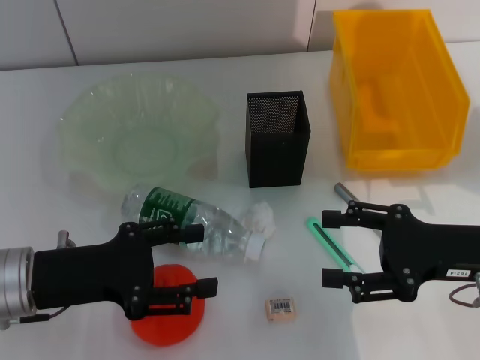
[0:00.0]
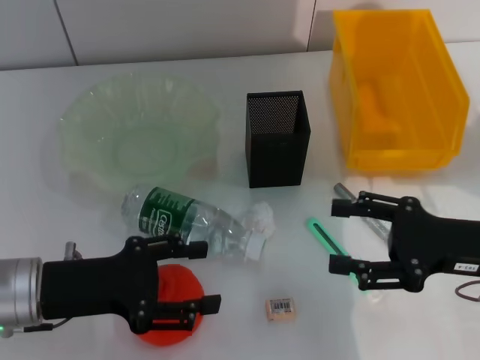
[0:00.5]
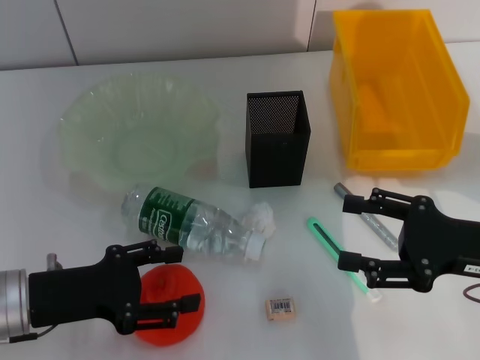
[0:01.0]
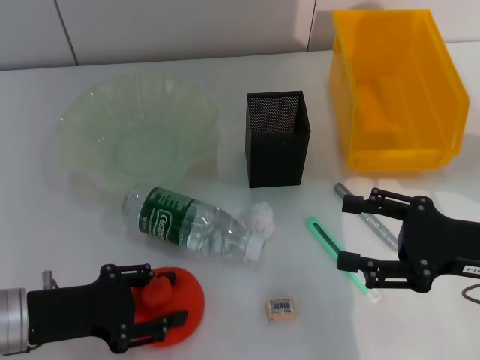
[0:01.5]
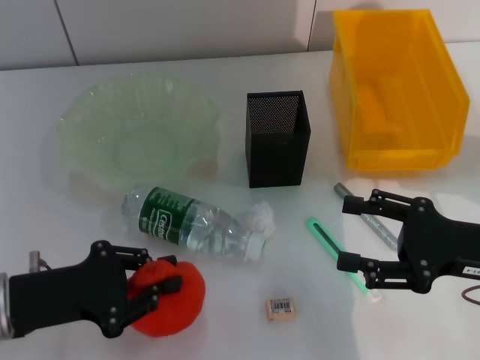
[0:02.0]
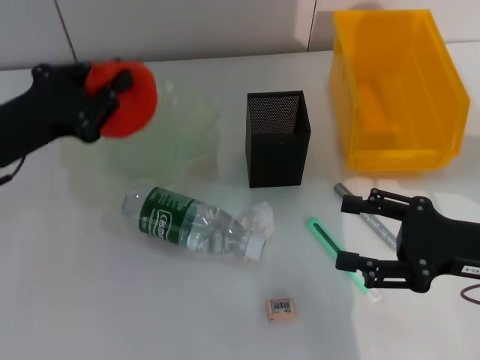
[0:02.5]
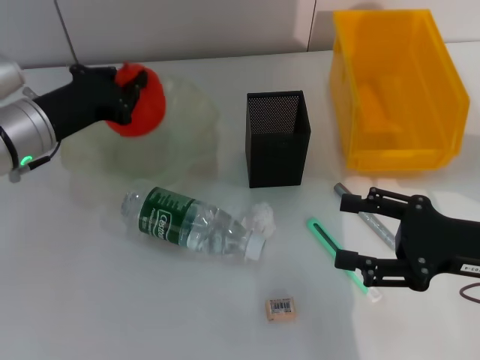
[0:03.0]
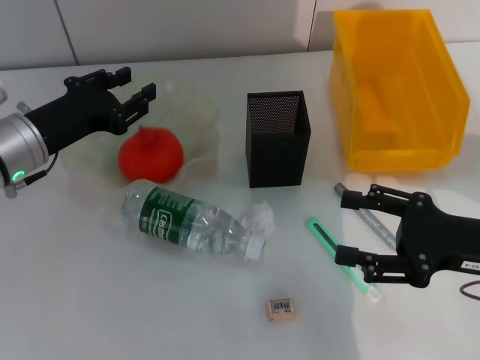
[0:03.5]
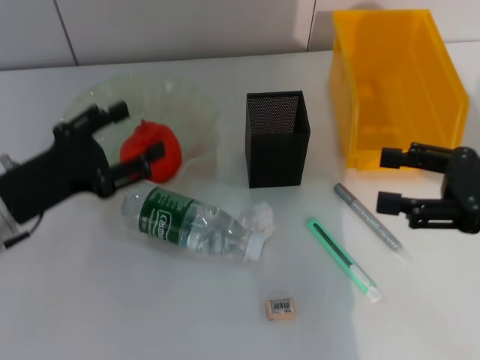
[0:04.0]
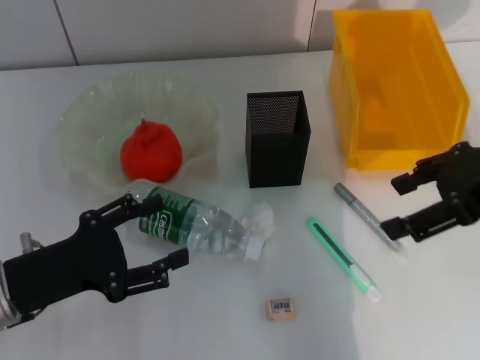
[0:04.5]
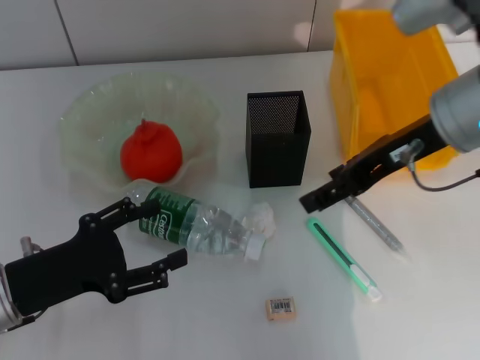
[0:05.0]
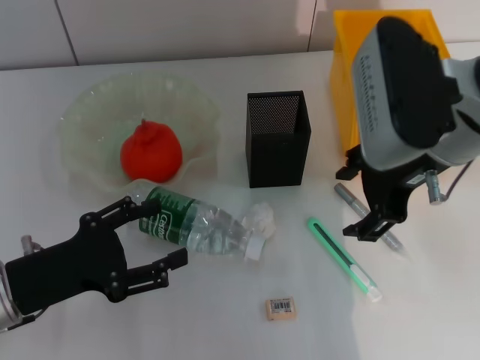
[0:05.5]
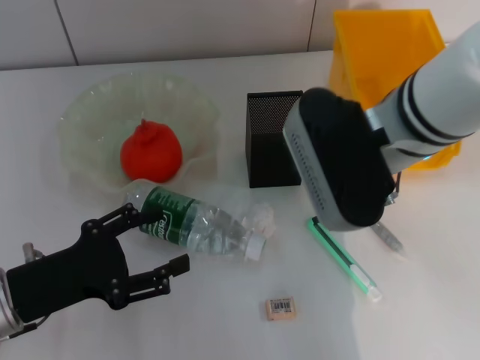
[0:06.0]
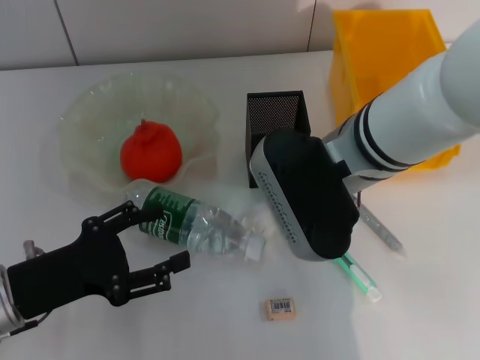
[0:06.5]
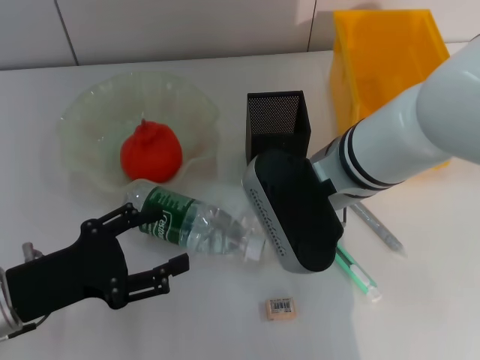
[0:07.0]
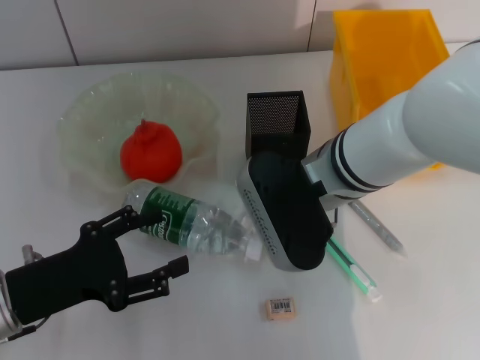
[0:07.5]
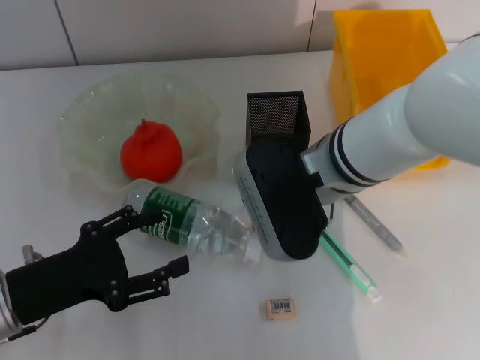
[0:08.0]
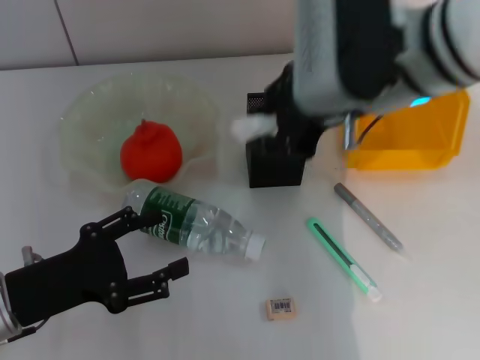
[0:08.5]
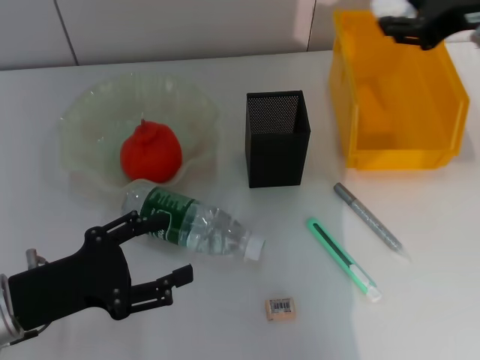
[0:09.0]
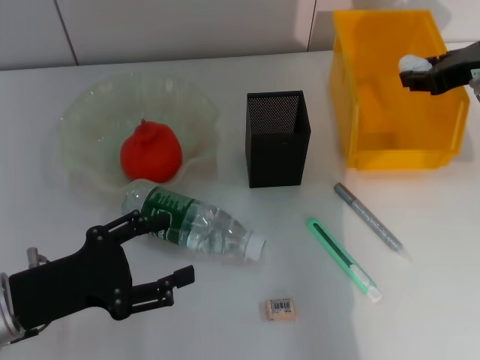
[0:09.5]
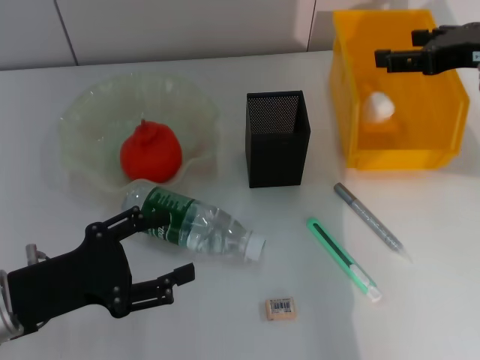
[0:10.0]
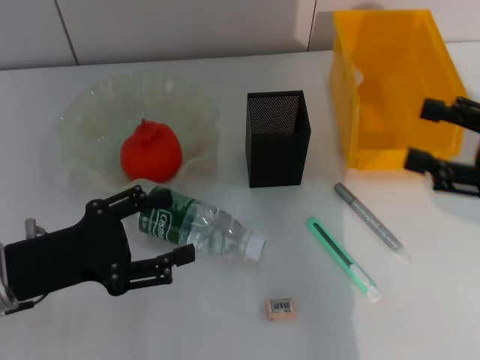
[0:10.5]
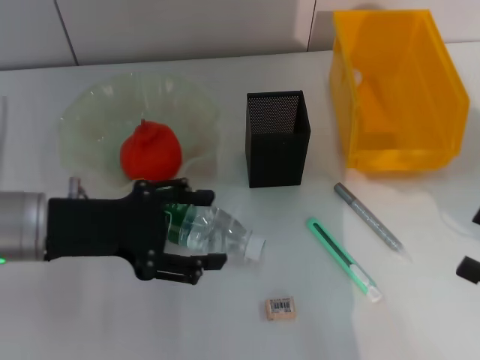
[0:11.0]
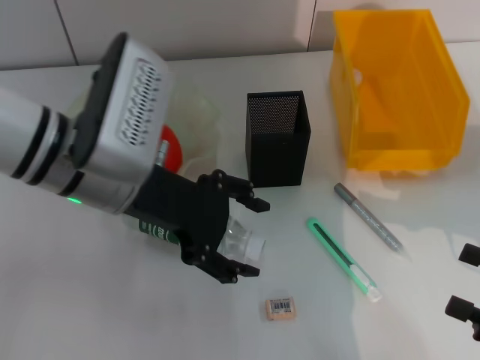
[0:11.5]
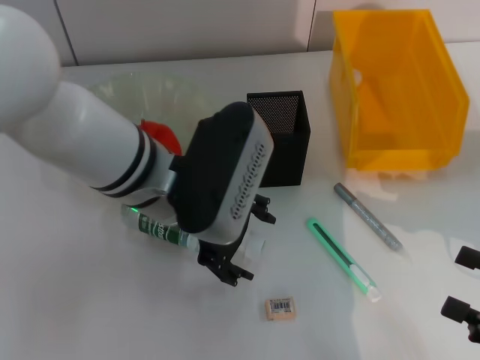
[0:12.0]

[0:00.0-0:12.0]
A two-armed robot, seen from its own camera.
Step, 0:00.0 to 0:01.5: Grab the orange with the left hand.
Step, 0:02.0 to 0:03.5: Place the orange into the fruit bowl with the left hand.
Step, 0:04.0 to 0:08.0: Grab the paper ball with the right hand.
Step, 0:08.5 to 0:10.0: Place the paper ball into the trash can with the right hand.
0:00.0 to 0:02.0: The left gripper closes up.
0:02.0 to 0:04.0: The right gripper goes about 5 cm upward; the left gripper travels forward by some 5 cm, and opens up.
0:04.0 to 0:06.0: The left gripper shifts approximately 5 cm backward; the right gripper is displaced to the left by approximately 20 cm.
0:06.0 to 0:08.0: The right gripper is displaced downward by some 5 cm, and closes.
0:08.0 to 0:10.0: The right gripper moves to the right, about 20 cm.
0:10.0 to 0:12.0: The right gripper travels backward and downward by roughly 25 cm, while the left gripper moves to the right, upward and forward, about 20 cm.

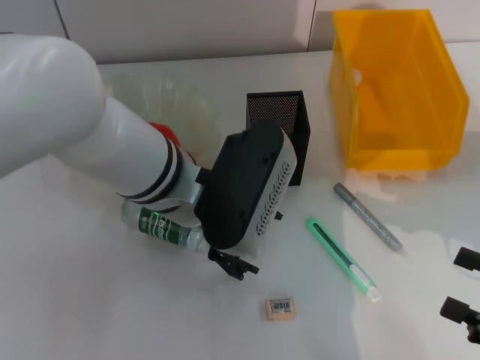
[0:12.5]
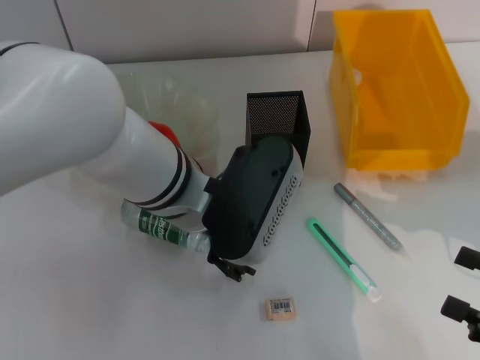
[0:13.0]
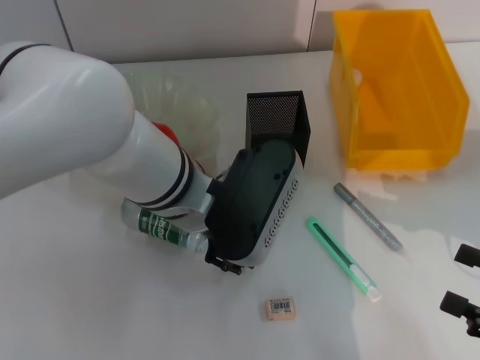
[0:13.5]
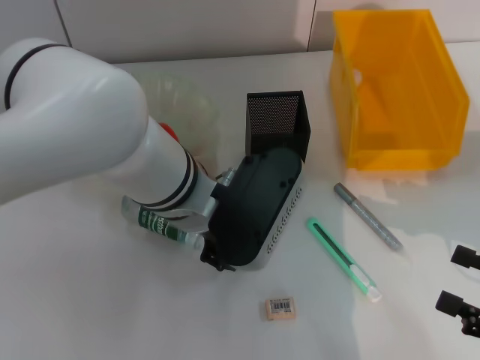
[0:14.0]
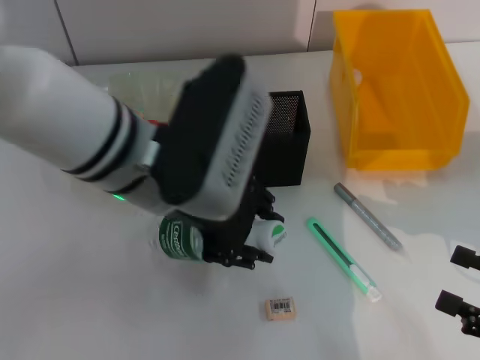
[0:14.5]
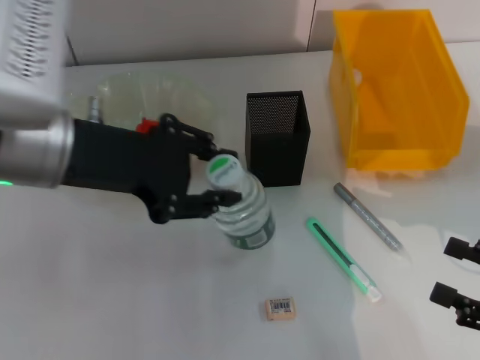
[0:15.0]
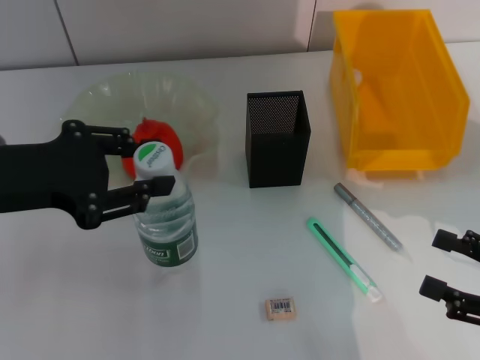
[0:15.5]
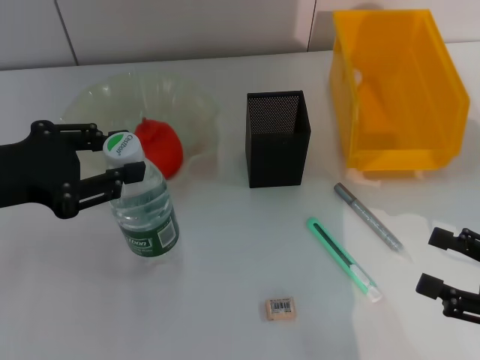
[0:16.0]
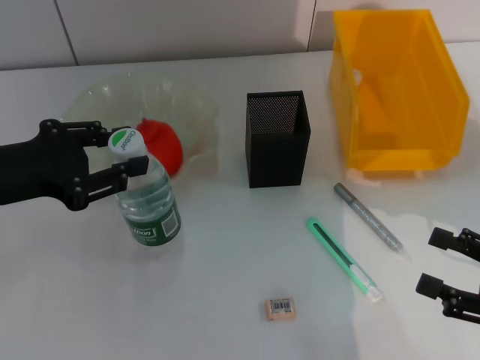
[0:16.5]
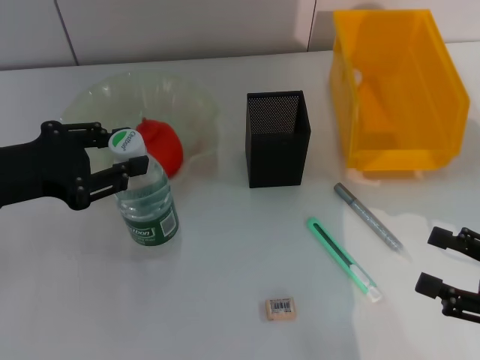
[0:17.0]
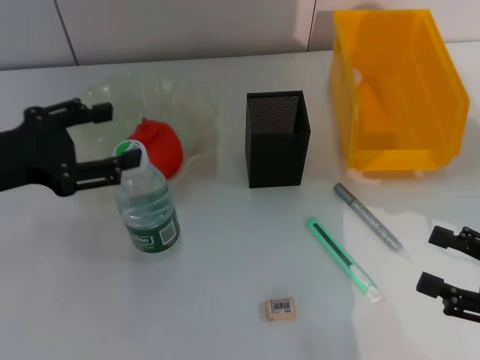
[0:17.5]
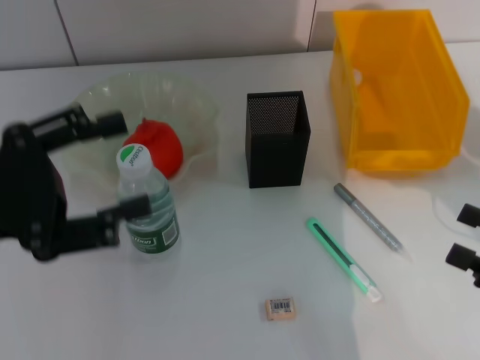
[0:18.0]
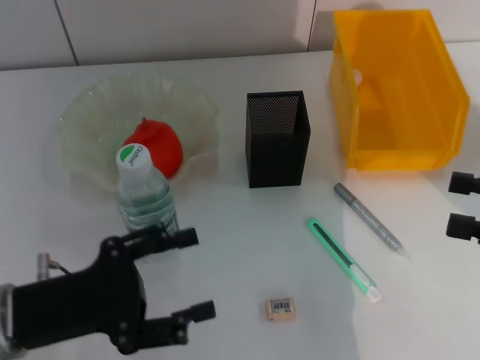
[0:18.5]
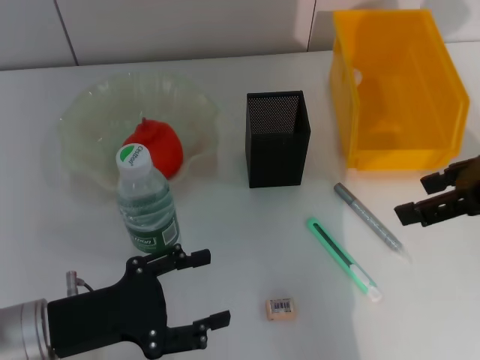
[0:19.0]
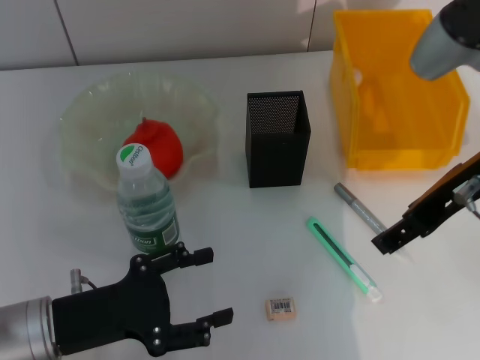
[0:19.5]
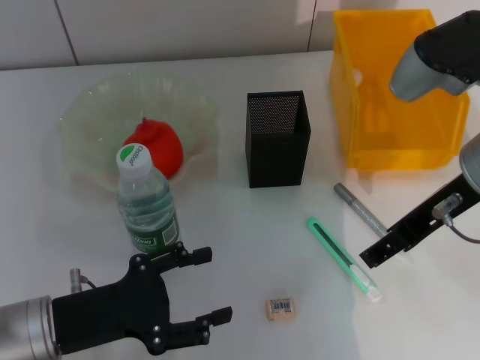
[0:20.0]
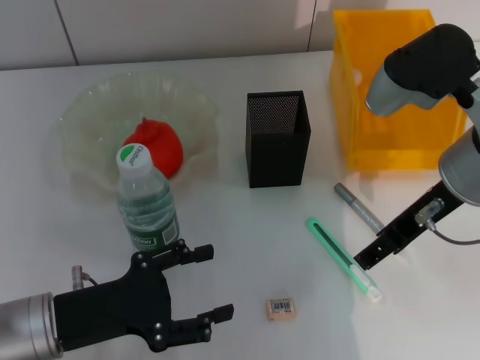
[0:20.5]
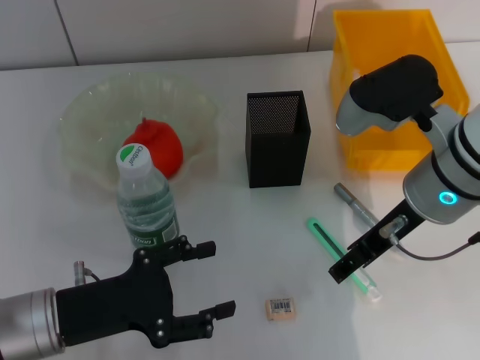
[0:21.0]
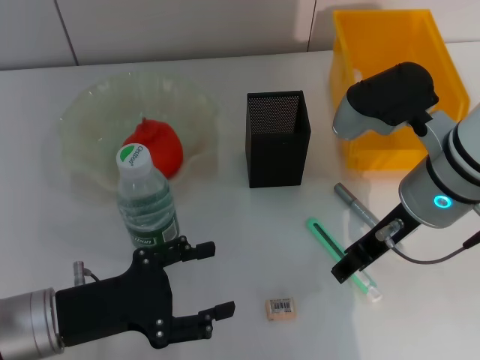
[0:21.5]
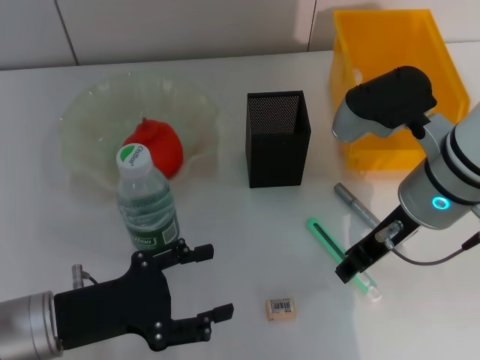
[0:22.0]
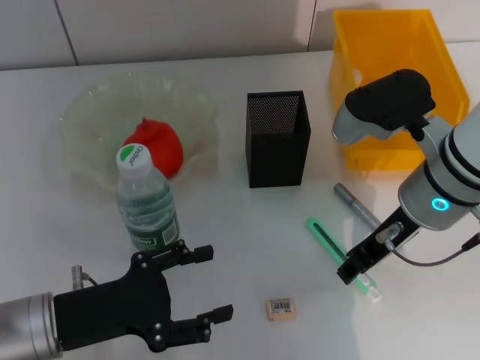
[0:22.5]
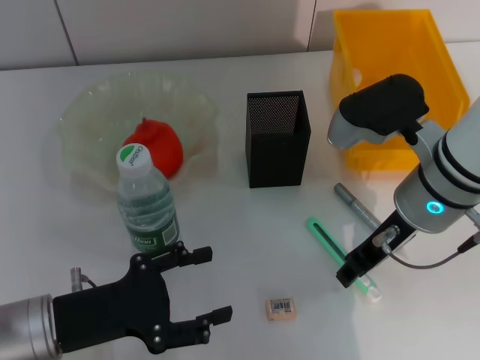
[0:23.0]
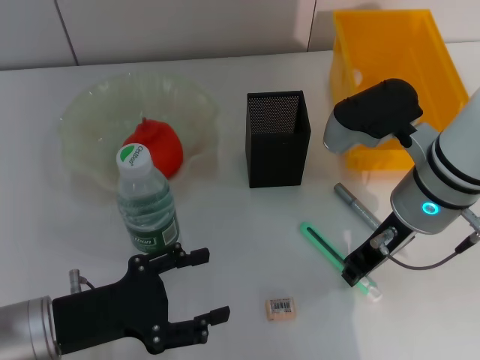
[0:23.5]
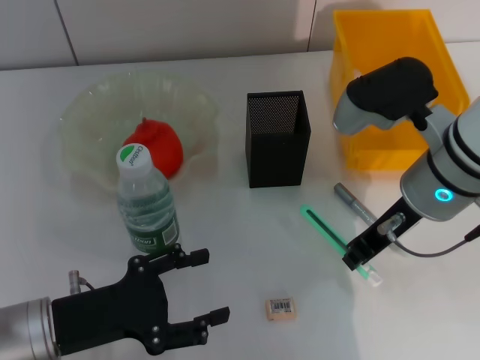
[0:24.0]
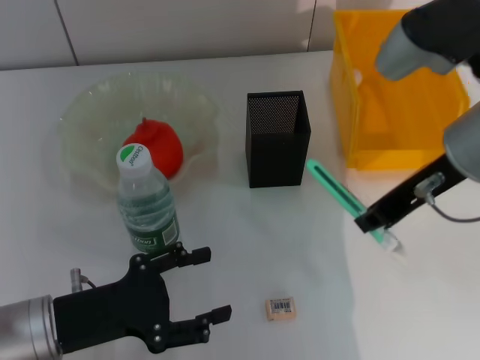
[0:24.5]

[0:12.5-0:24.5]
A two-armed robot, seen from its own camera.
Step, 0:14.5 to 0:17.5: Place the water bottle on the table with the left hand.
Step, 0:18.0 to 0:23.0: Grab the blue utility knife with the right hand.
0:12.5 to 0:14.5: The left gripper closes.
0:14.5 to 0:16.5: The left gripper shifts roughly 20 cm to the left.
0:16.5 to 0:18.5: The left gripper travels downward and backward by some 10 cm, and opens, while the right gripper is displaced upward by some 10 cm.
0:18.5 to 0:20.5: The right gripper goes some 20 cm to the left and forward.
0:20.5 to 0:22.5: The right gripper ends up roughly 5 cm from where it was, and closes its fingers.
0:22.5 to 0:24.5: The right gripper travels upward by about 5 cm, and closes its fingers.

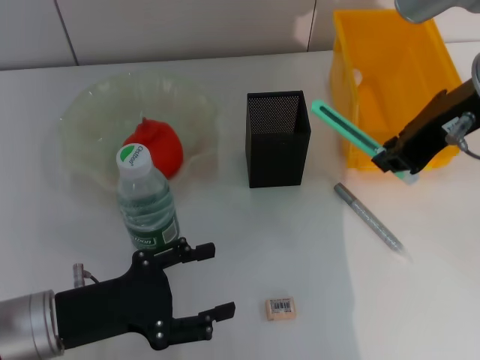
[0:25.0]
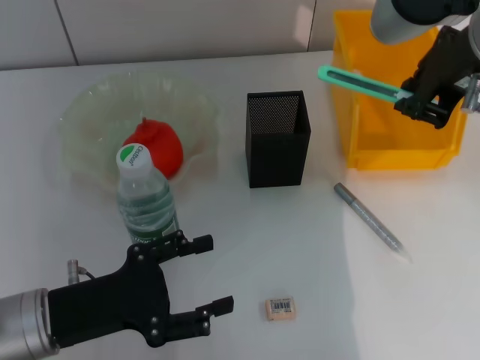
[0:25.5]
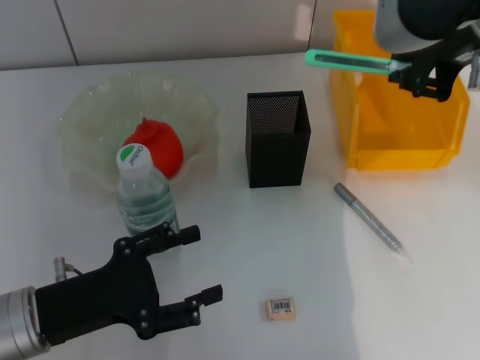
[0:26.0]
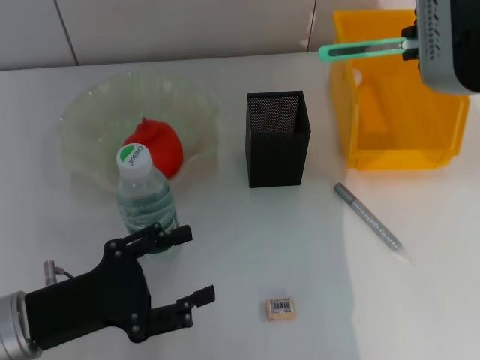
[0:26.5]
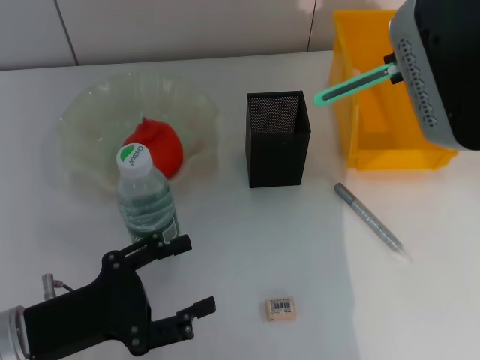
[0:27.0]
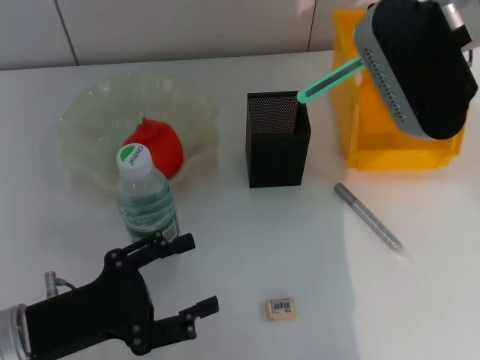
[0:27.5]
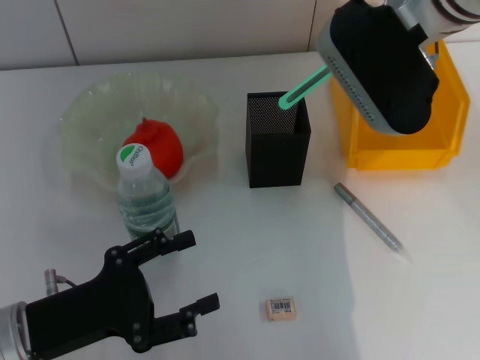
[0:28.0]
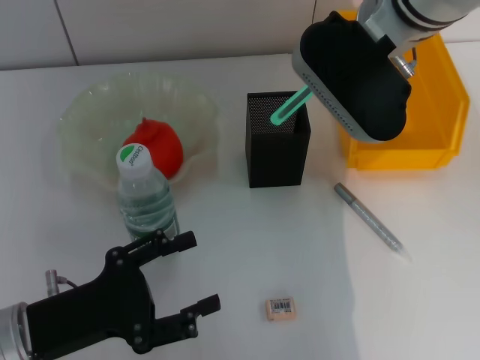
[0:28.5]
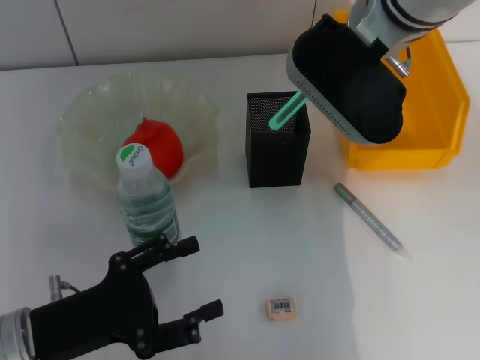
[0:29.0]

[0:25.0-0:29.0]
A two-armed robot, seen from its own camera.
0:27.0 to 0:29.0: The right gripper heads to the left and forward, covering some 10 cm.
